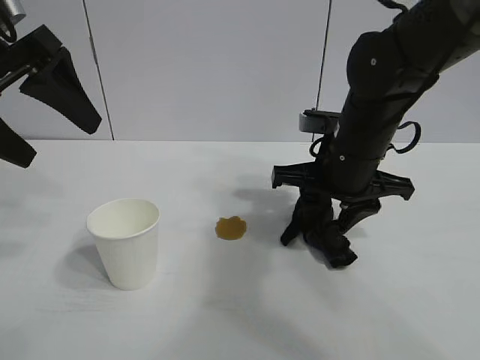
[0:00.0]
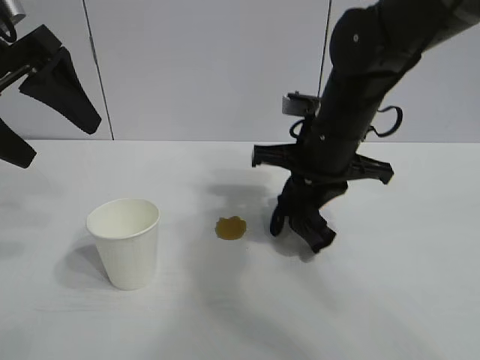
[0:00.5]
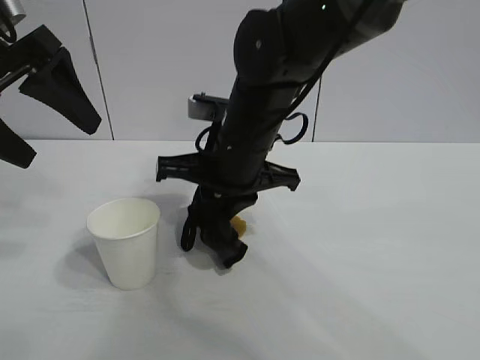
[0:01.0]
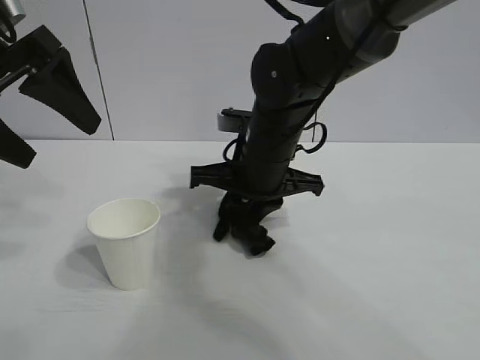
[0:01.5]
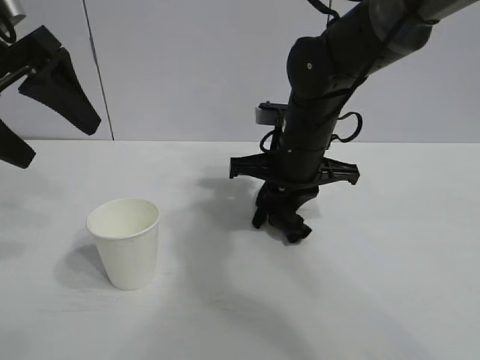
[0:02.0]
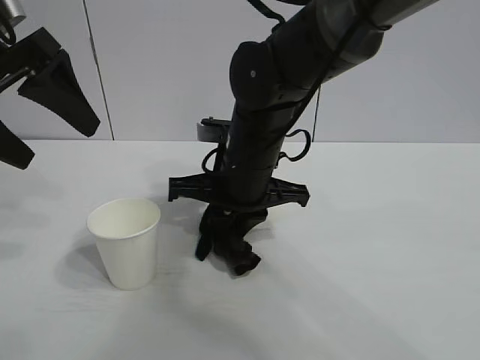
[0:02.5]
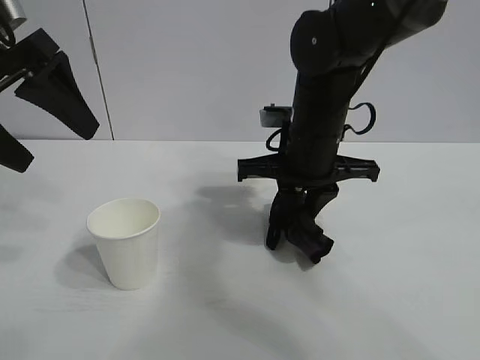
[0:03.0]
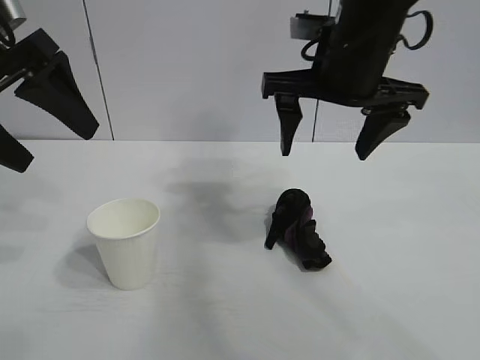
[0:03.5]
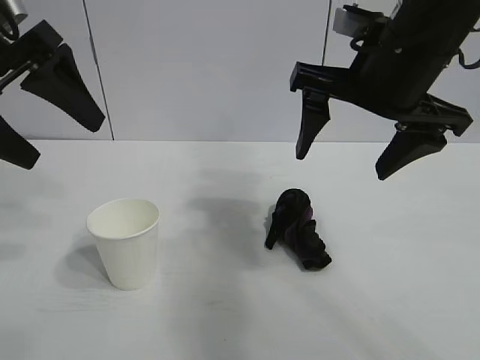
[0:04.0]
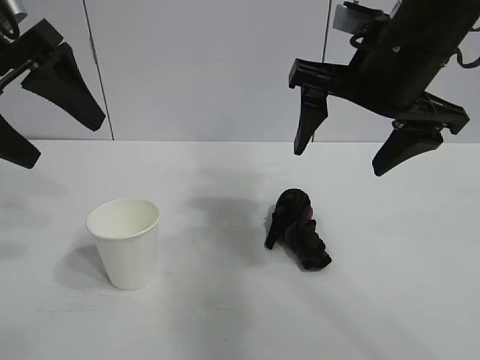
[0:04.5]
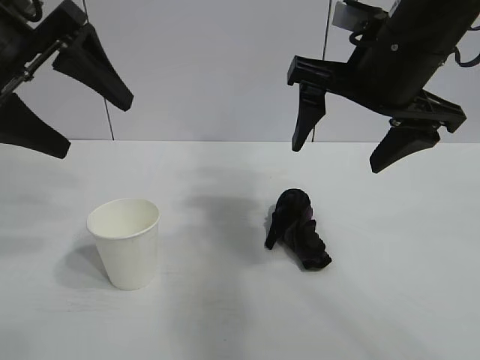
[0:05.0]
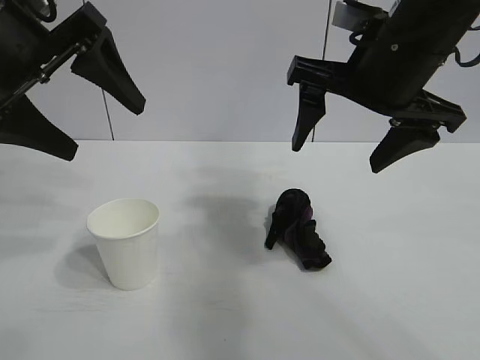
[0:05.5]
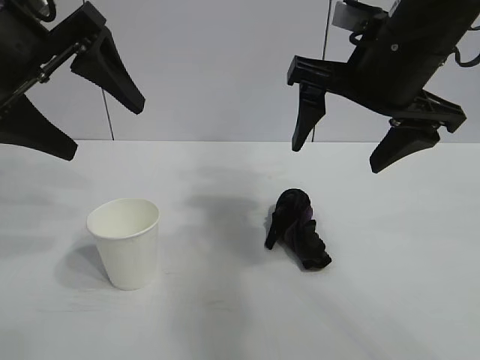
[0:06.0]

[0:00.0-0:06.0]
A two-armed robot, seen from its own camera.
Task of the whole recording: the left gripper pick up the fallen cup and place it upright, the right gripper grasp the black rag and wipe the stain on the table, the right gripper put the black rag back in its original position.
Step, 0:00.5 to 0:02.5: Wipe the stains off the table with the rag with right gripper.

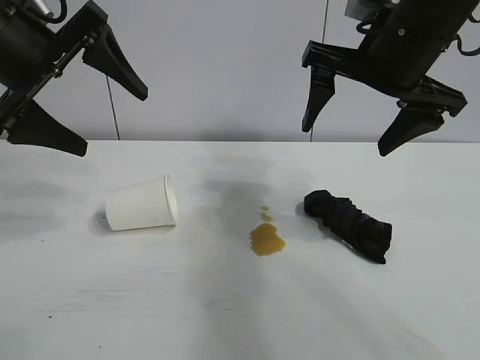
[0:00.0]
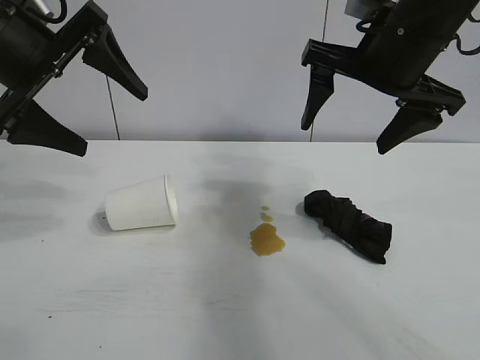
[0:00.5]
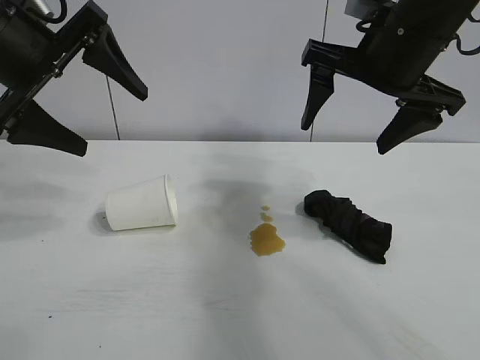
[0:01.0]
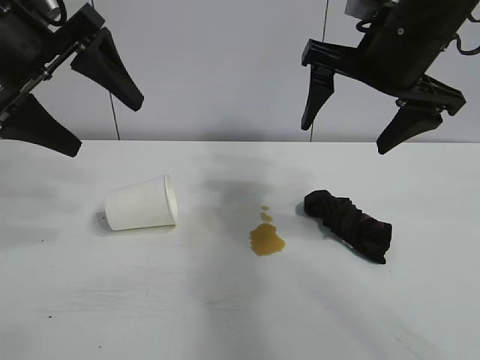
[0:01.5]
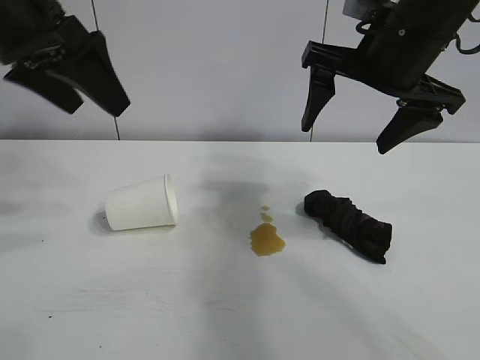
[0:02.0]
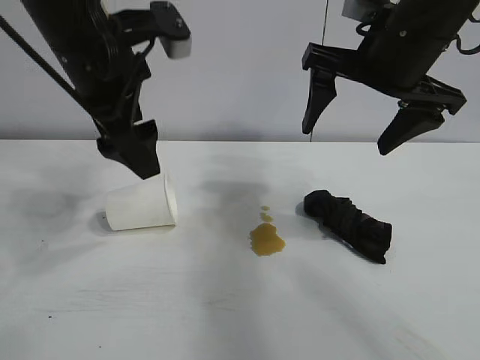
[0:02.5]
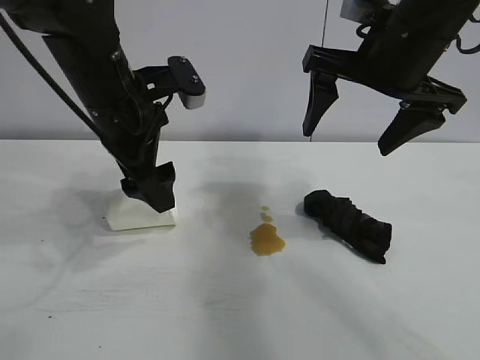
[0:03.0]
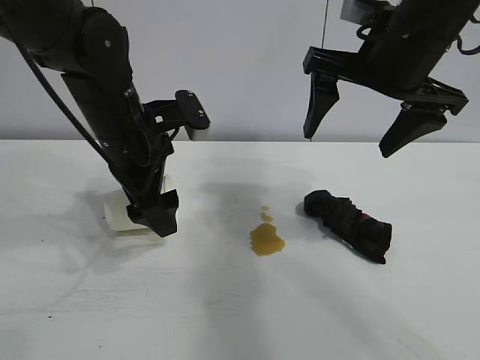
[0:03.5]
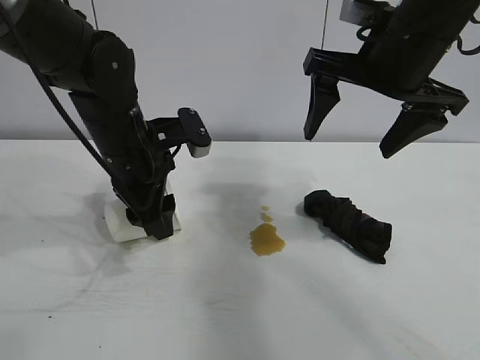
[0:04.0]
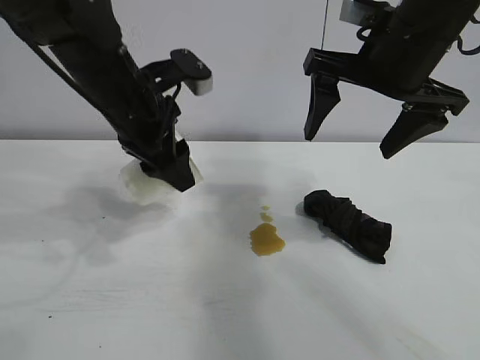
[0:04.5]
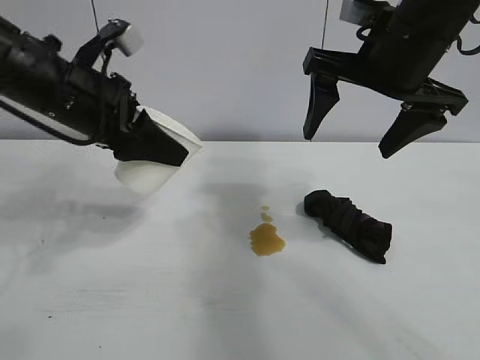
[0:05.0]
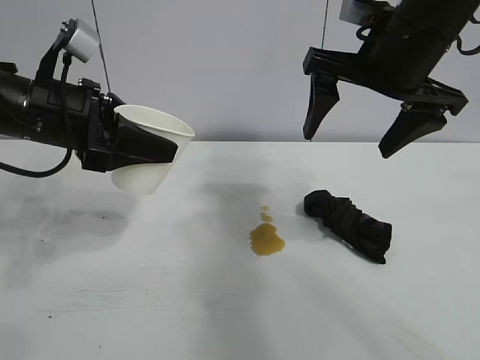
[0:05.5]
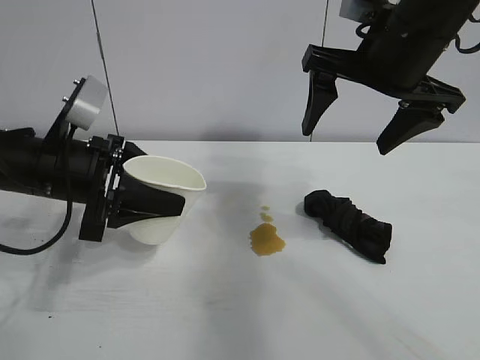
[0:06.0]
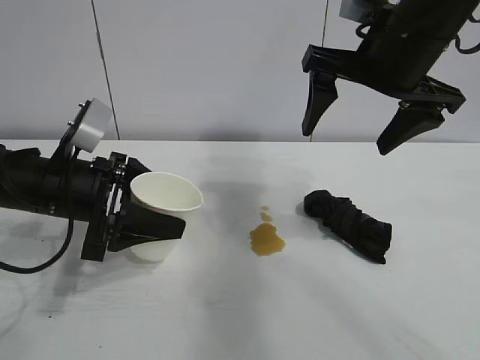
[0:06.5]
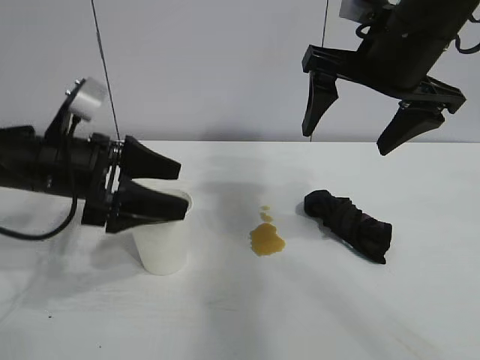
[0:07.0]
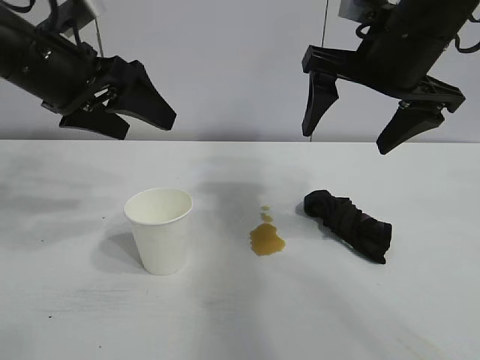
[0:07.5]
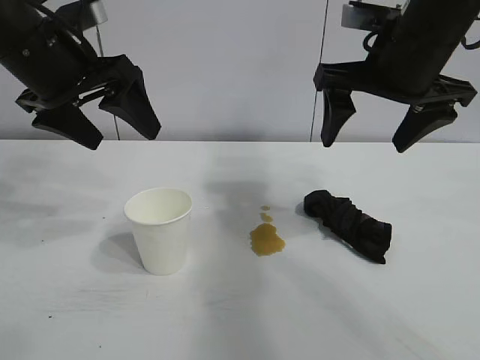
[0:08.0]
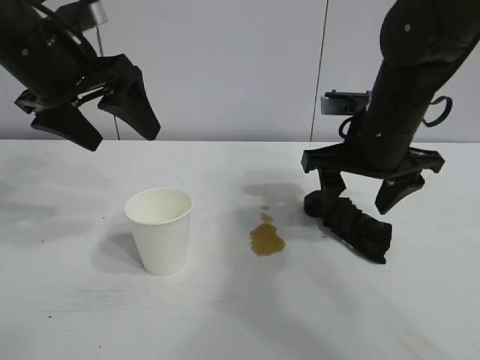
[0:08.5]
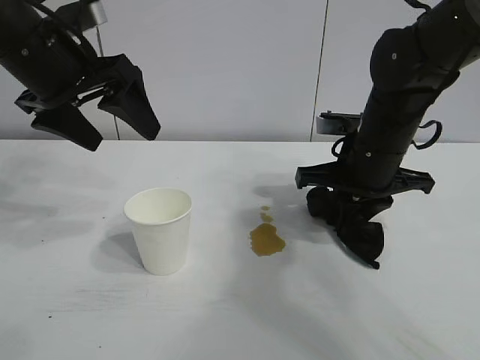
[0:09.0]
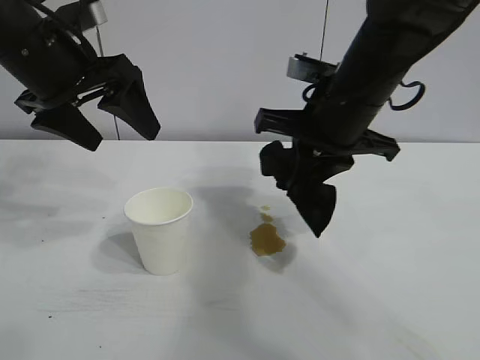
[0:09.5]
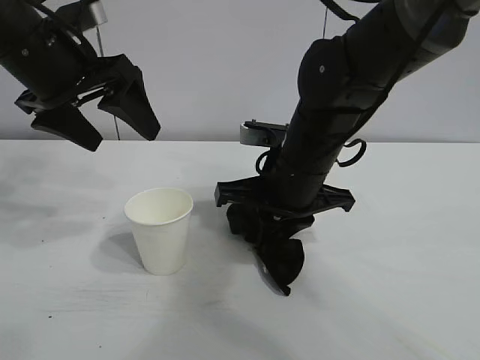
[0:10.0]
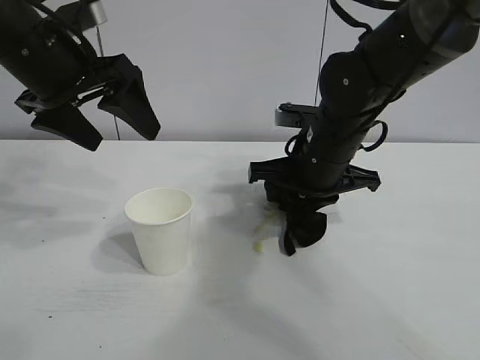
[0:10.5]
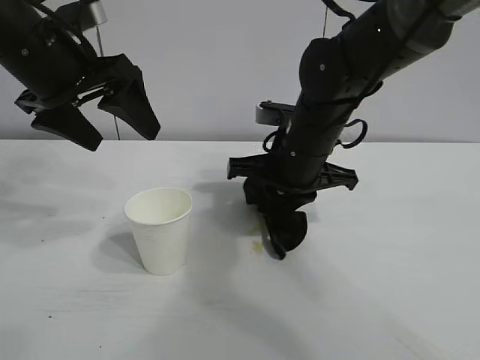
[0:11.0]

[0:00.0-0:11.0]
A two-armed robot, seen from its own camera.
Task of the whole recording: the left gripper pick up the fallen cup and place it upright, the right gripper grasp the black rag and wipe the stain on the table, the right gripper put the black rag back in its original position.
Step, 0:01.5 to 0:04.0: Grasp the paper cup with left gripper.
Step, 0:04.5 to 0:06.5: Stand the paper cup upright with left gripper.
Step, 0:07.0 to 0:08.5: Grasp the rag with right gripper.
